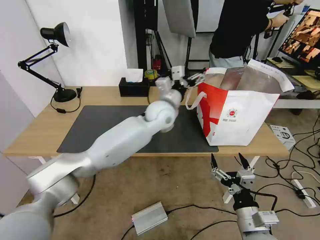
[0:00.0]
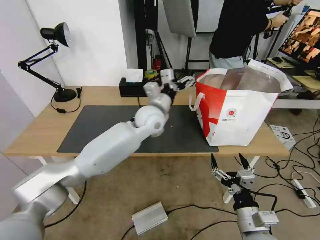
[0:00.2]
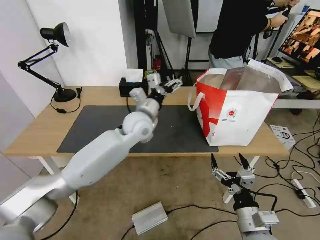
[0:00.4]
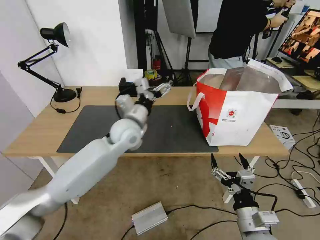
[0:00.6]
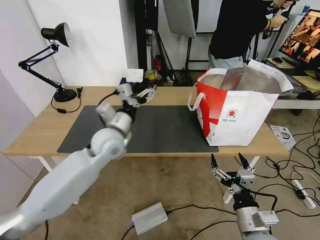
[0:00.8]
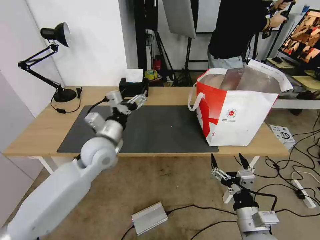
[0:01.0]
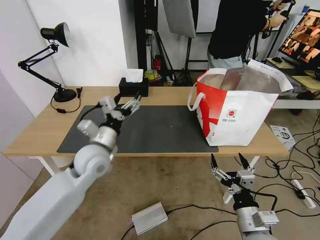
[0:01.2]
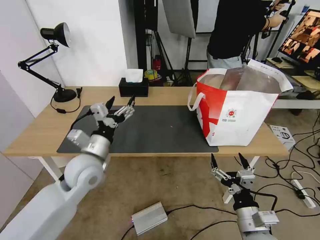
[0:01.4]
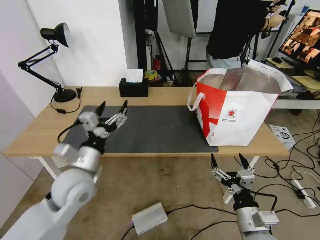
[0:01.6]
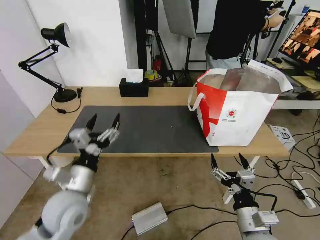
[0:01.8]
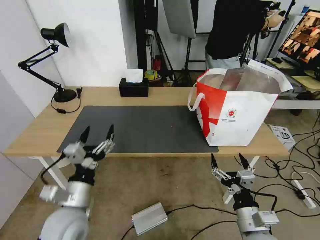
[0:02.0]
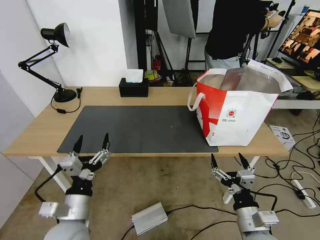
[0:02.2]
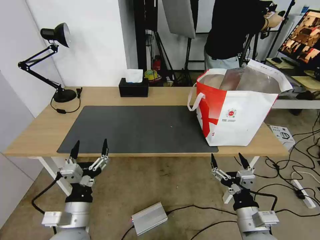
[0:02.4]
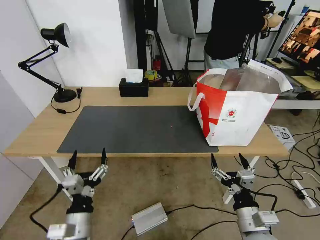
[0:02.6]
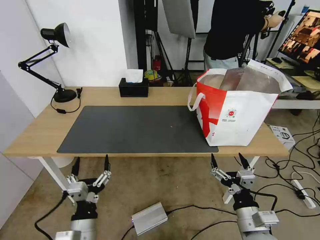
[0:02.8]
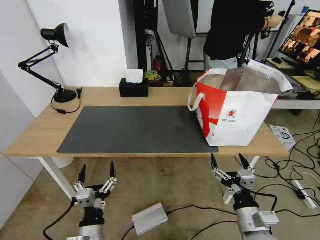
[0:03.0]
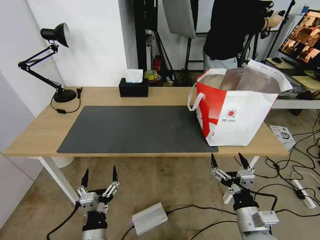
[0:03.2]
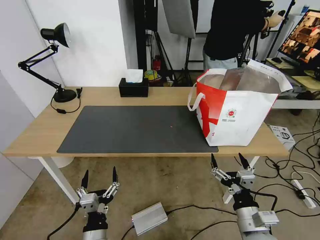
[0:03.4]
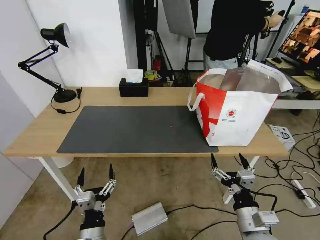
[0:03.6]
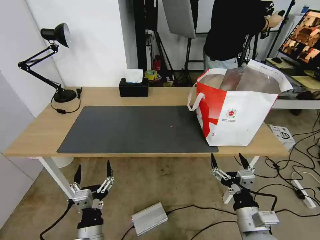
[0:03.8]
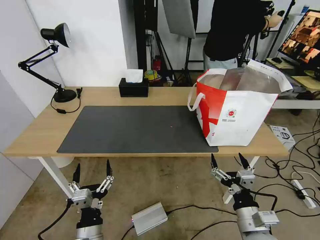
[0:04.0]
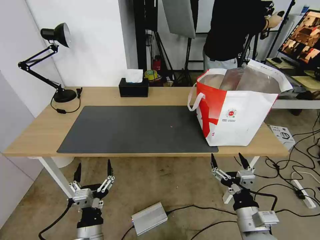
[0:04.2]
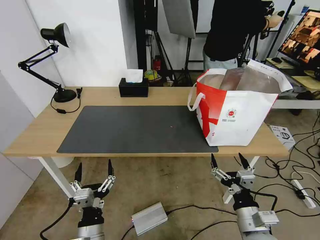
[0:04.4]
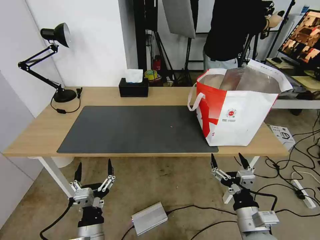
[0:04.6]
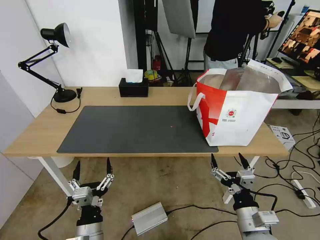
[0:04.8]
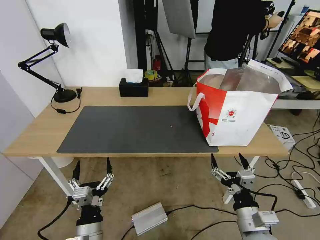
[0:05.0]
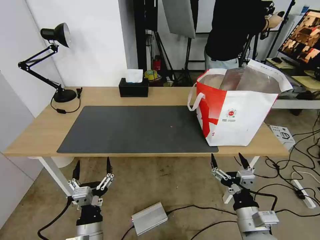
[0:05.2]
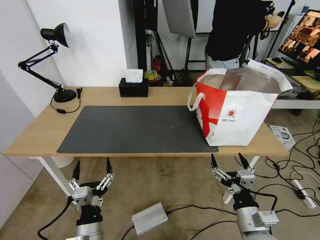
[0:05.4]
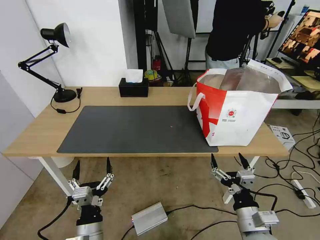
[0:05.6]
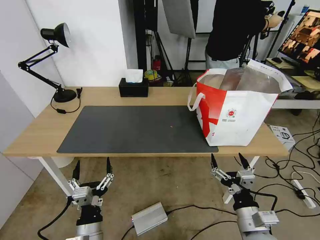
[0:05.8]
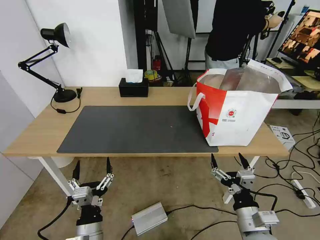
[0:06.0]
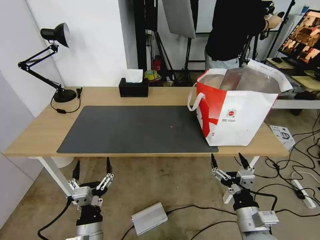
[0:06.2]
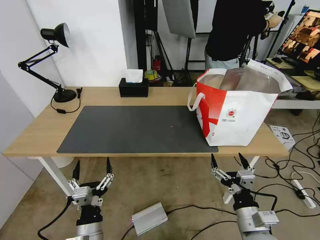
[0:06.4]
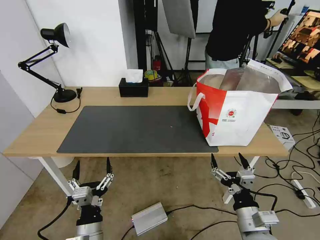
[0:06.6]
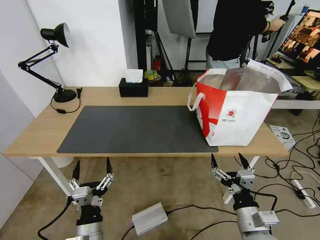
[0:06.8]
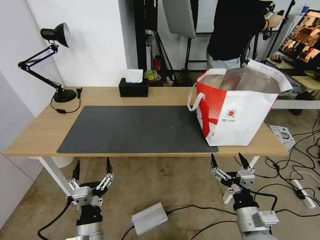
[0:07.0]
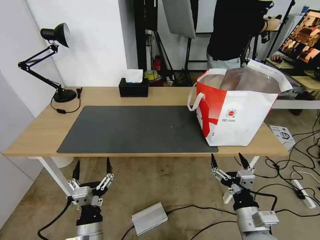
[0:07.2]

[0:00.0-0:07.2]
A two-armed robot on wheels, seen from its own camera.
Task of the whole recording: Pick up the trash from the table and place it into the takeout bag.
0:00.0 to 0:01.4: The left gripper heads to the left and backward, covering about 25 cm.
0:01.4 to 0:02.8: The left gripper shifts some 25 cm backward and downward.
0:02.8 to 0:04.4: The grippers stay close to where they were, moving slightly.
0:04.4 to 0:07.2: Both grippers stay about where they are.

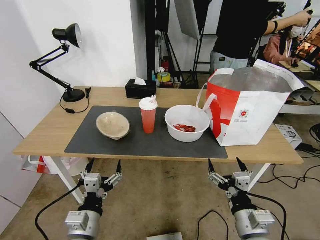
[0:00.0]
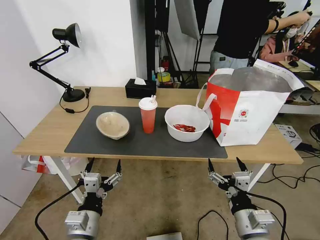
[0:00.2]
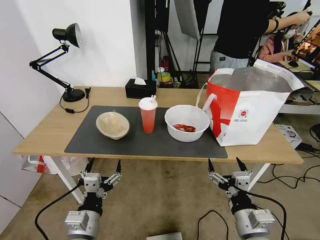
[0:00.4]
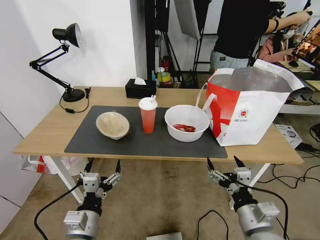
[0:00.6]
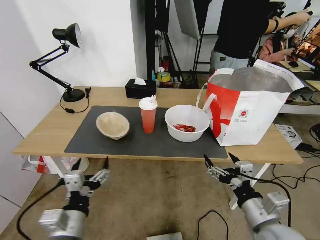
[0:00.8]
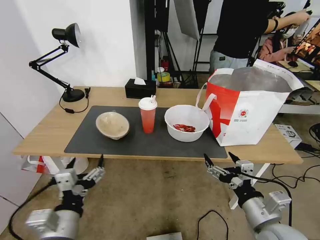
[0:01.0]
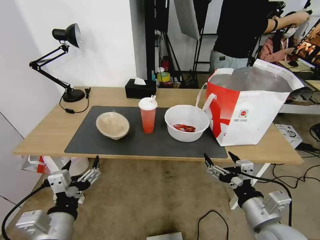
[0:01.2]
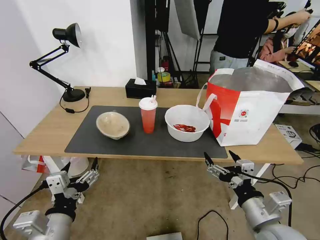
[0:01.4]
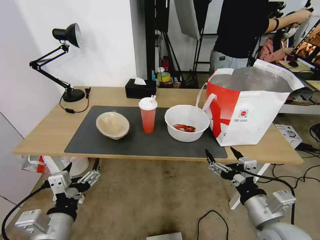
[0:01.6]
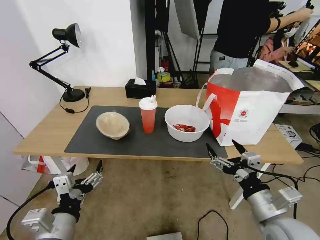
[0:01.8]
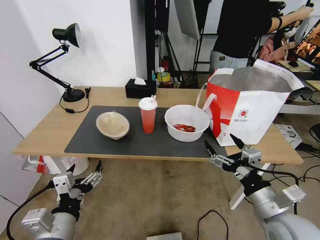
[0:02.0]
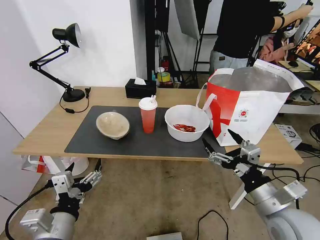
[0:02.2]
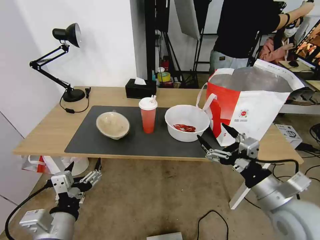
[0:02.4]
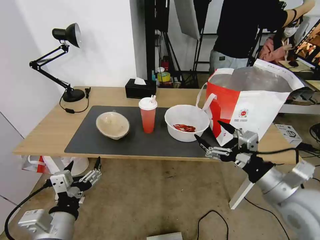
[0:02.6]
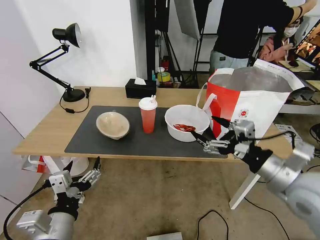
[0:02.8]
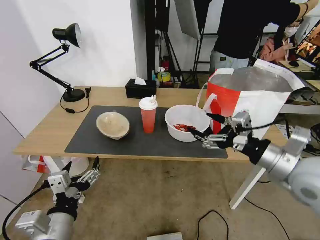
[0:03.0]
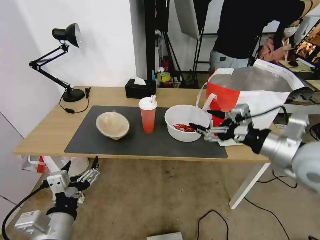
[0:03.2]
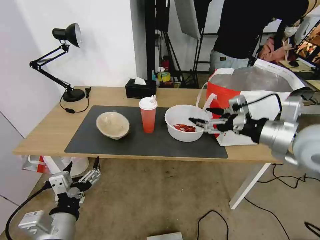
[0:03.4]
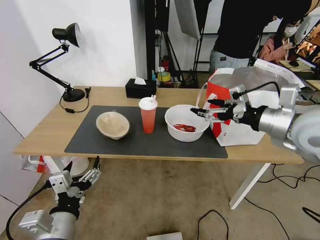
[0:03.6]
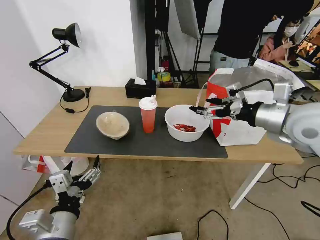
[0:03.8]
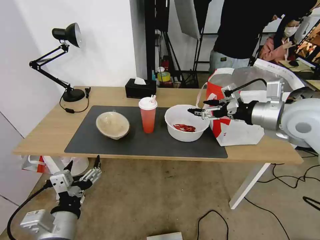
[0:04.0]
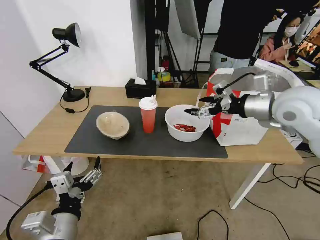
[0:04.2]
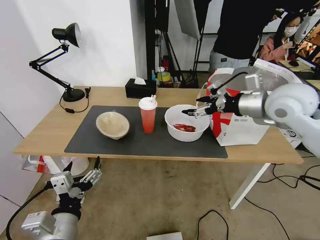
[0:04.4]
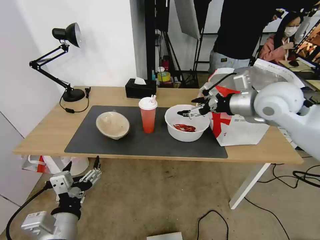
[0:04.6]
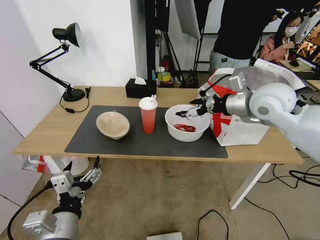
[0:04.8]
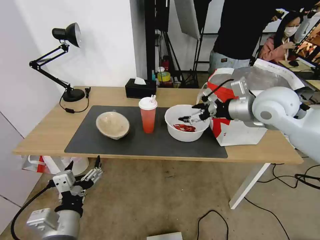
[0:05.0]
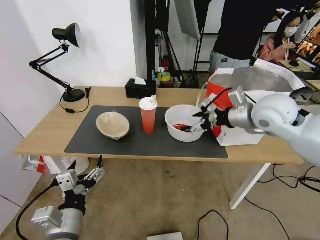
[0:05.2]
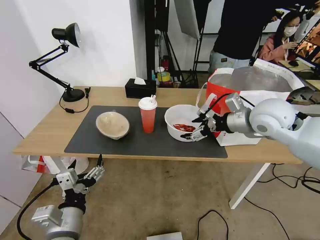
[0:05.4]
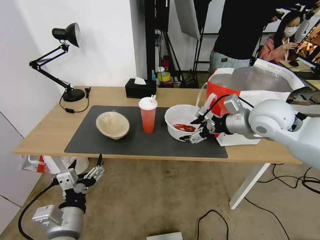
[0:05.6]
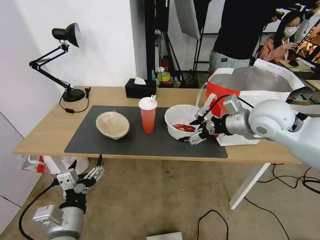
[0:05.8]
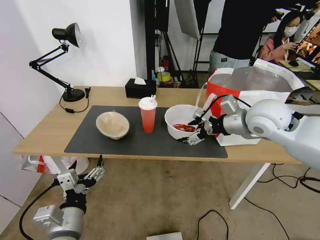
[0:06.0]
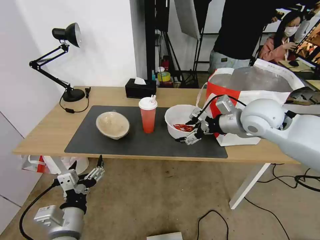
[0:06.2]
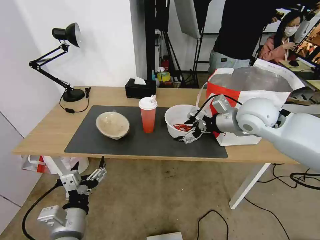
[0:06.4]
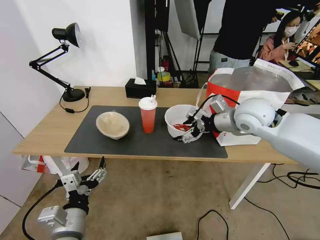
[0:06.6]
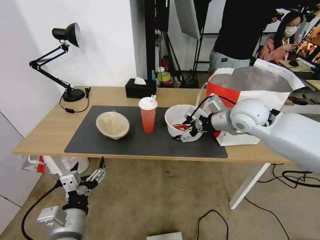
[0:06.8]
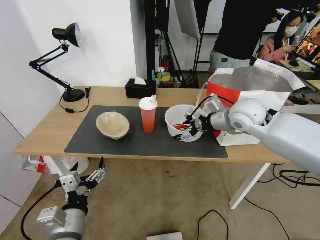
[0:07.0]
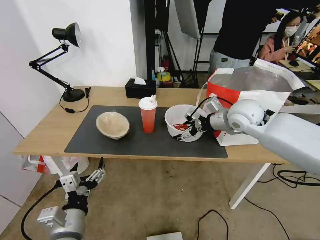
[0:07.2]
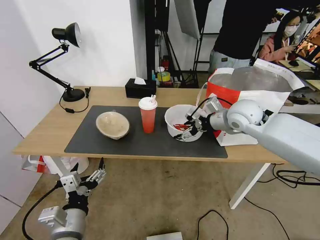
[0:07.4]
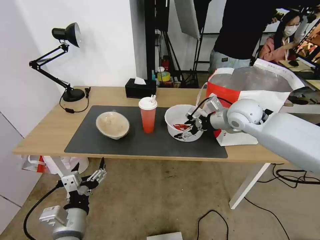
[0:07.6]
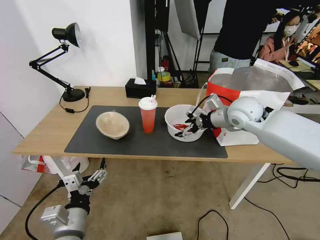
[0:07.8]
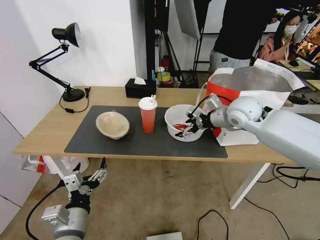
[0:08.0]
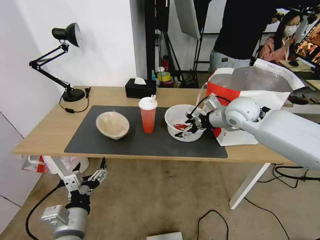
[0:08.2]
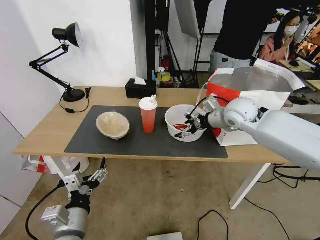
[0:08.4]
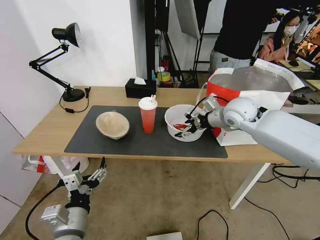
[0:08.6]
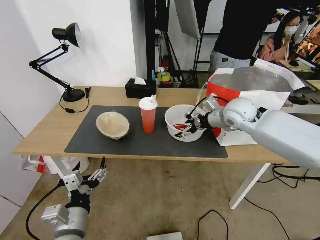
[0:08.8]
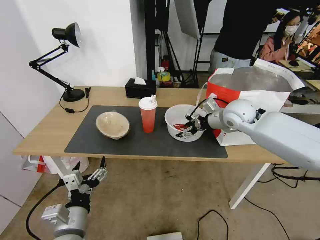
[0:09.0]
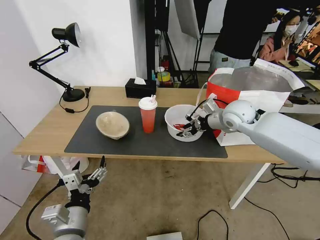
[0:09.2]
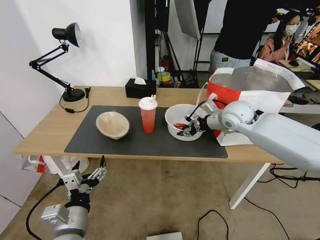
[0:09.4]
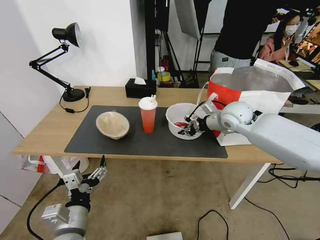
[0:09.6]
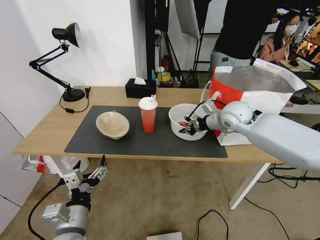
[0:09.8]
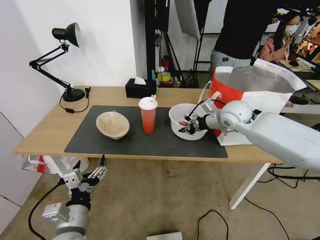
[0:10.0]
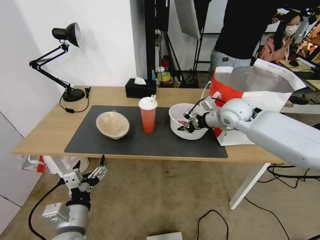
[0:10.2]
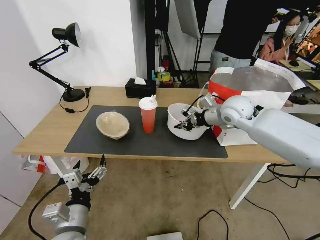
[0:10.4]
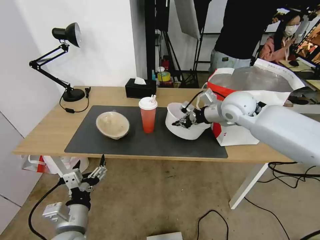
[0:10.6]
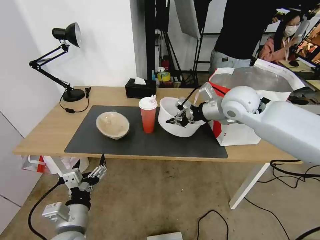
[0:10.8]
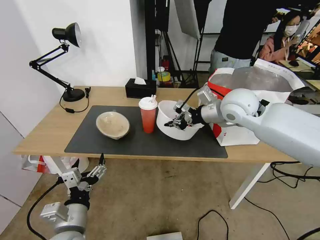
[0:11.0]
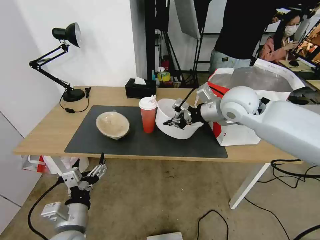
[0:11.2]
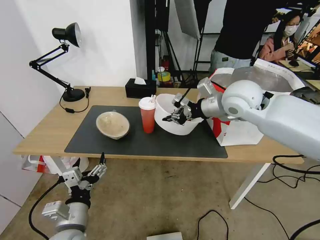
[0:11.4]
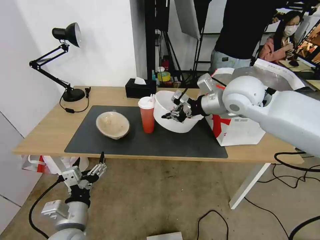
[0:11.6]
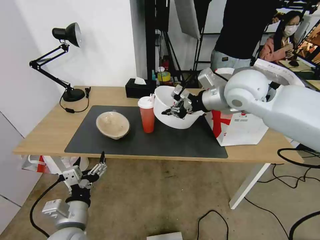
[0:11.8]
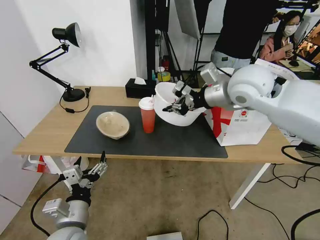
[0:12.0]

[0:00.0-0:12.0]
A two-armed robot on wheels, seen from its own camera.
Task of the whole recording: Pick up the trash from the table and place it into the takeout bag.
0:01.6 to 0:03.0: The right gripper travels upward and forward by approximately 15 cm.
0:03.0 to 0:04.4: The right gripper travels forward and upward by roughly 20 cm.
0:04.4 to 0:06.0: The right gripper moves approximately 5 cm.
0:06.0 to 0:07.6: The right gripper travels forward by some 5 cm.
0:07.6 to 0:09.0: There are only small adjustments of the grippers.
0:09.0 to 0:10.4: The right gripper closes its fingers.
0:10.4 to 0:12.0: The right gripper shifts some 15 cm upward and backward.

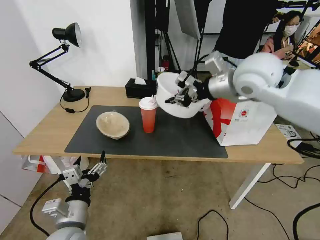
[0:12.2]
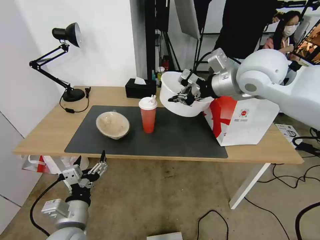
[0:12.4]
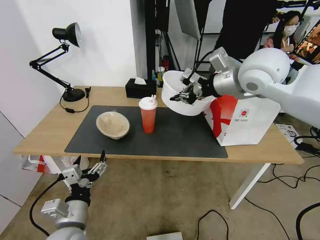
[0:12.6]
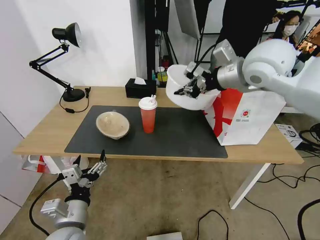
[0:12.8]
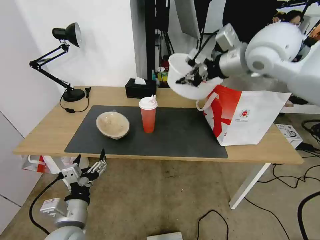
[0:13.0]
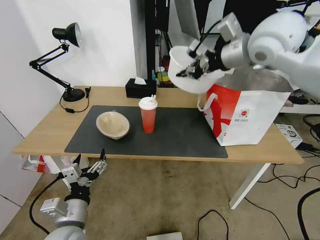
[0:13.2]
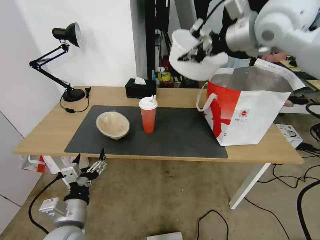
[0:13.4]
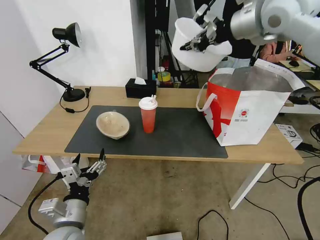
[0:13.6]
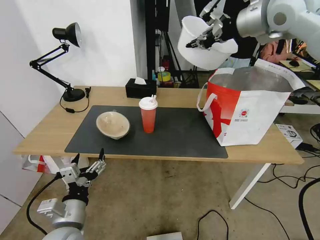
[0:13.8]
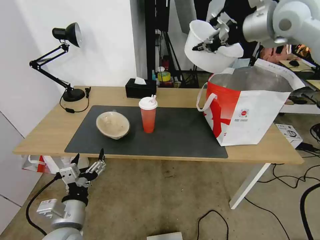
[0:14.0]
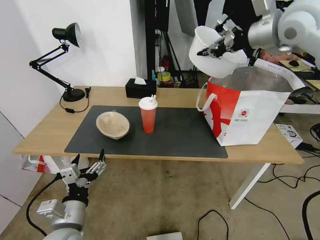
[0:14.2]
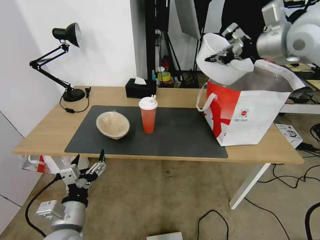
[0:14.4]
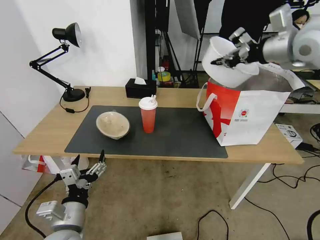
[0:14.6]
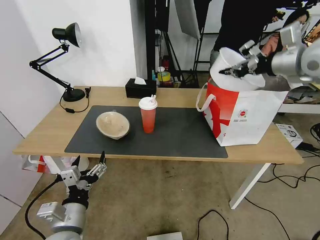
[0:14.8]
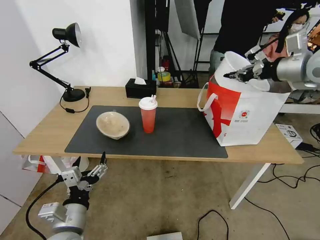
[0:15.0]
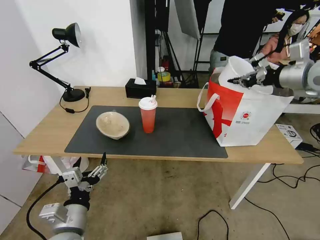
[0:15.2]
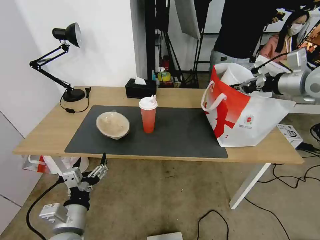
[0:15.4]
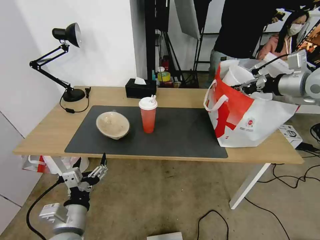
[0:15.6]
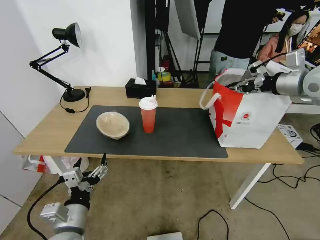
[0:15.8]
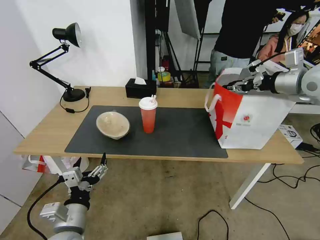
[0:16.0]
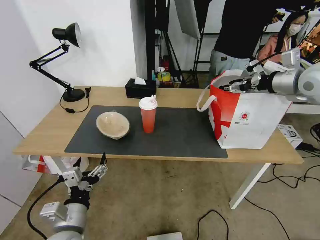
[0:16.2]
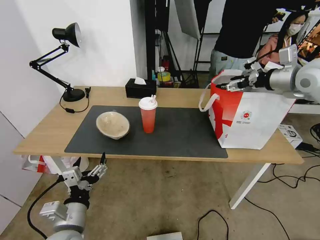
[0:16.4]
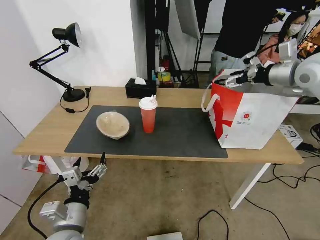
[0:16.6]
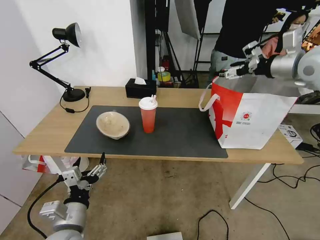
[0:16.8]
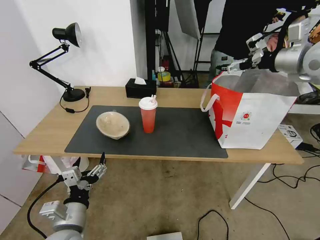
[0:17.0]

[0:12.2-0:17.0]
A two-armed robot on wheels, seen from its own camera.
Task of the whole recording: Pick up the trash from the table and place it into the takeout bag.
0:12.2 to 0:13.8: The right gripper moves upward, some 15 cm.
0:13.8 to 0:15.4: The right gripper is displaced to the right and downward by about 20 cm.
0:15.4 to 0:17.0: The right gripper ends up about 5 cm from where it was, and opens.
